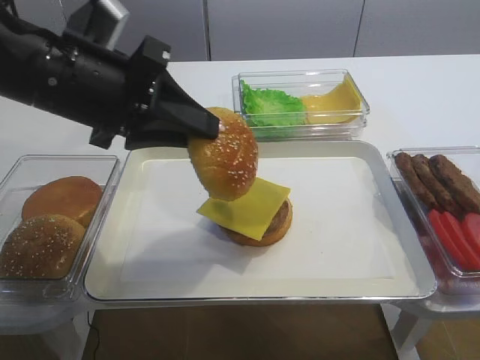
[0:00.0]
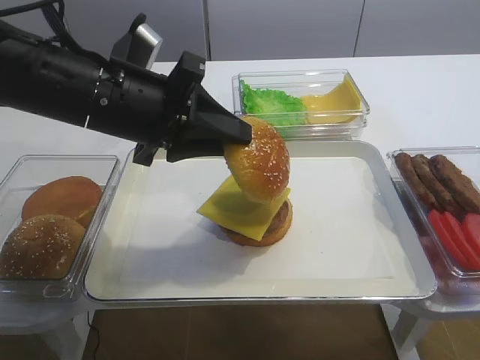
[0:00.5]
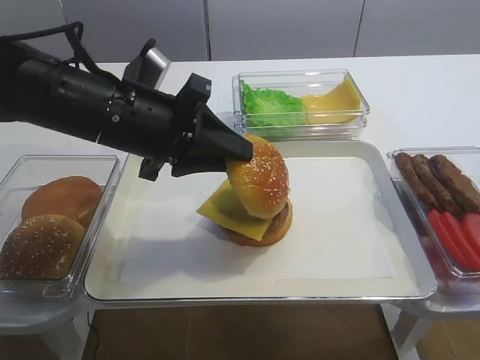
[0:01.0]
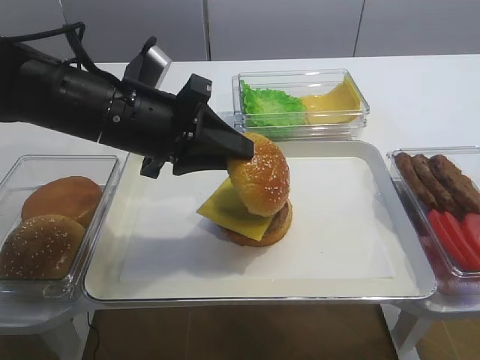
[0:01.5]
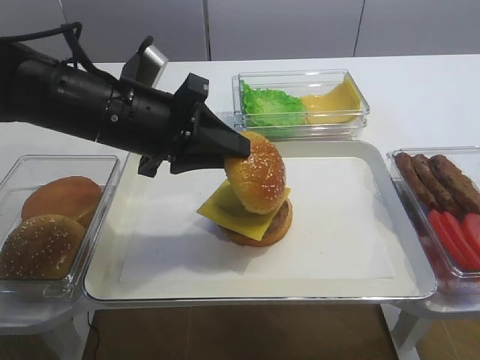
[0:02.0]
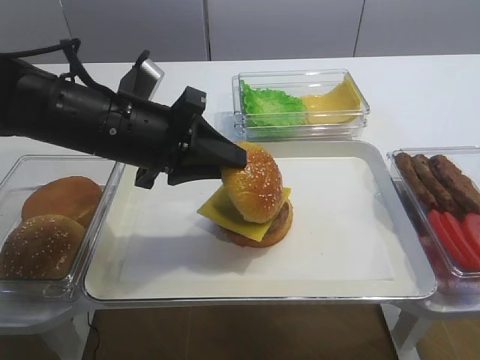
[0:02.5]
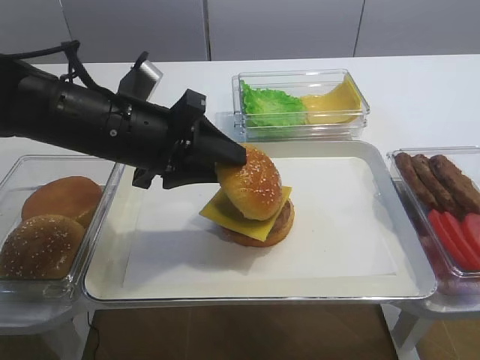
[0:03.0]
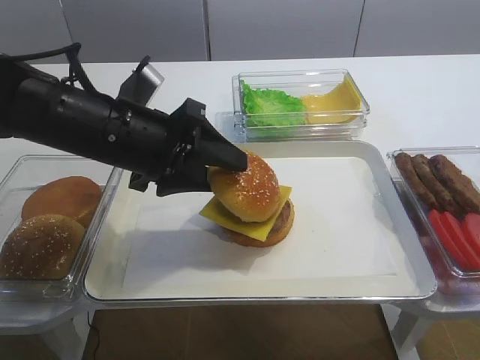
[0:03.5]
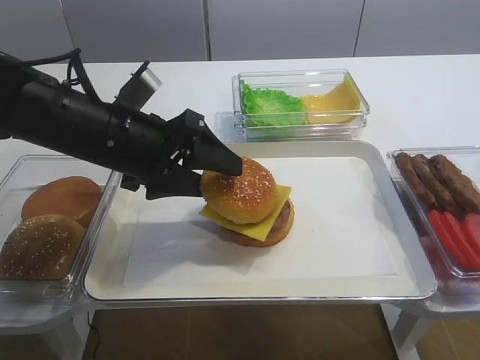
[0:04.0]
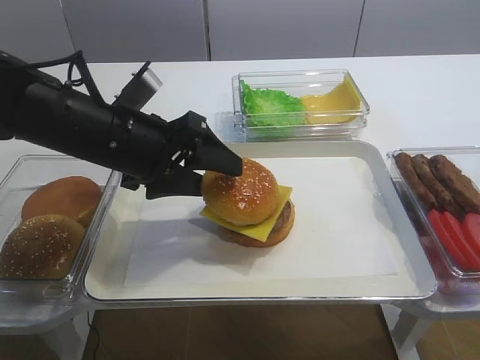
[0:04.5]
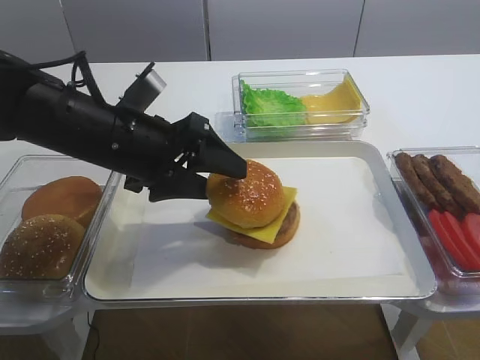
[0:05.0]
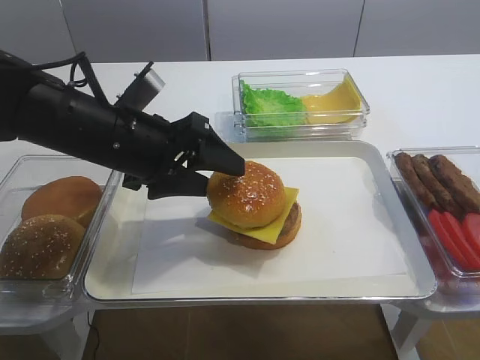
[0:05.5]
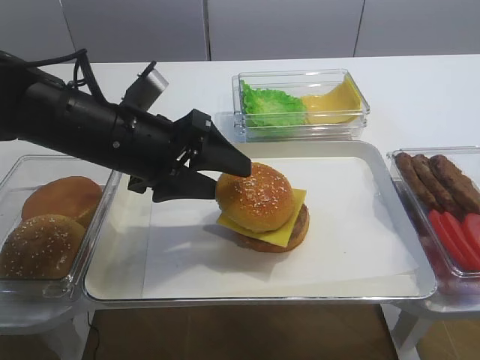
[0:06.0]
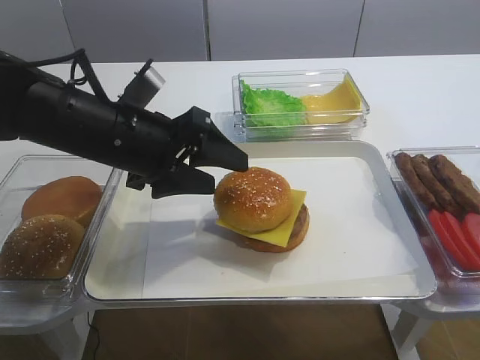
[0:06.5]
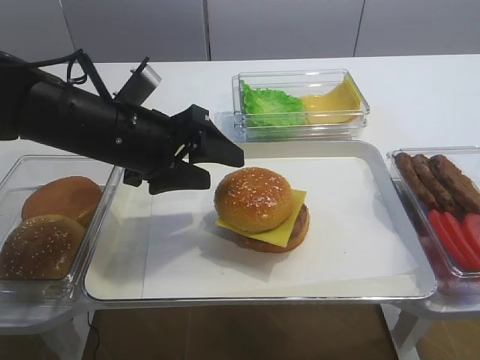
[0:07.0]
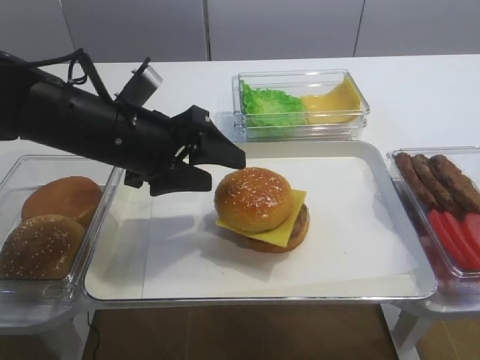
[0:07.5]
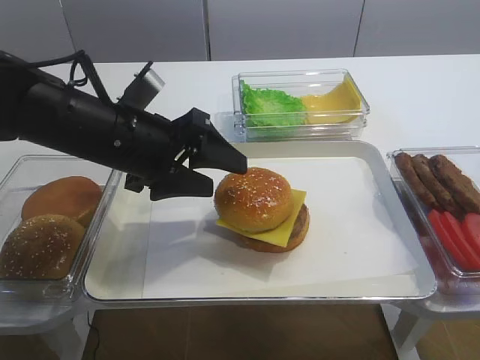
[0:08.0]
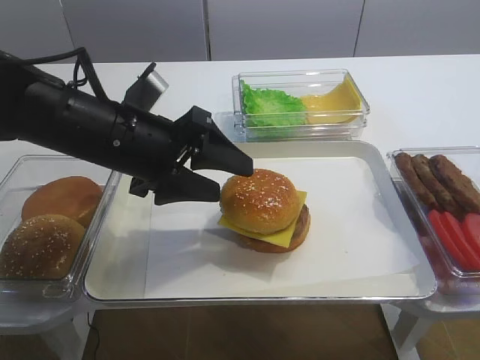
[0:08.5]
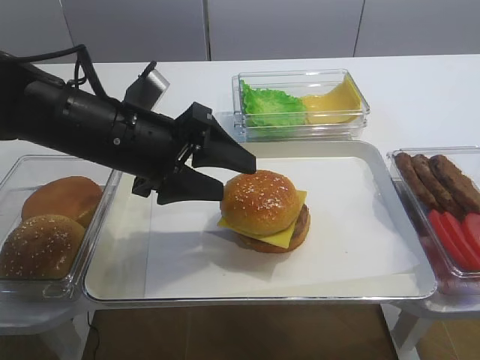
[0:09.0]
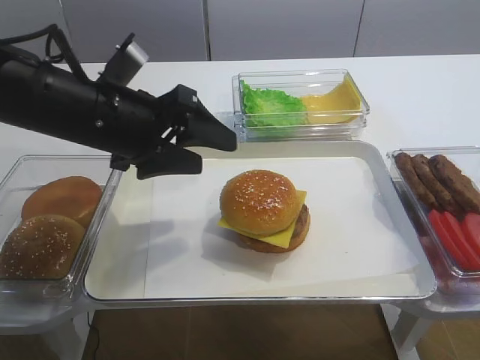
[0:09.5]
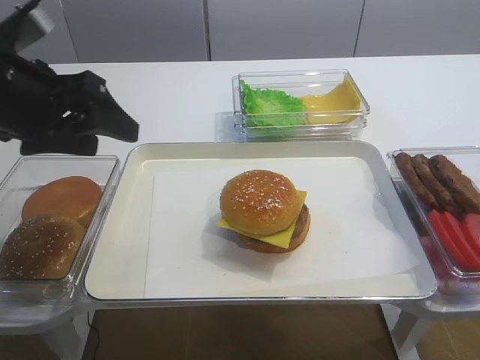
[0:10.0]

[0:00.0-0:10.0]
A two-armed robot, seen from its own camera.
Step, 0:00.0 to 0:06.5: Place the hamburger lid on the cheese slice with the left gripper.
0:00.0 to 0:02.0: The left gripper goes some 5 cm downward.
0:02.0 to 0:04.0: The left gripper opens.
0:04.0 to 0:06.0: Both grippers stay put.
0:06.0 to 0:08.0: The grippers make only small movements.
0:08.0 to 0:10.0: The left gripper moves to the left and upward, some 10 cm.

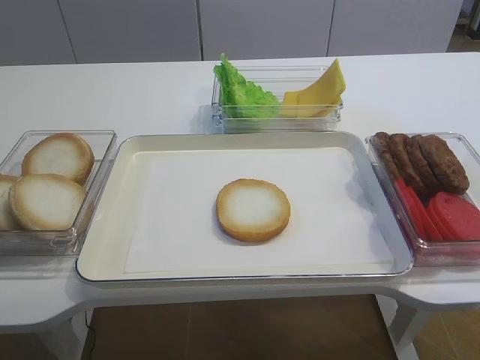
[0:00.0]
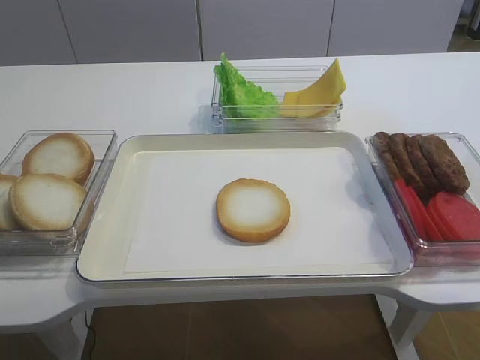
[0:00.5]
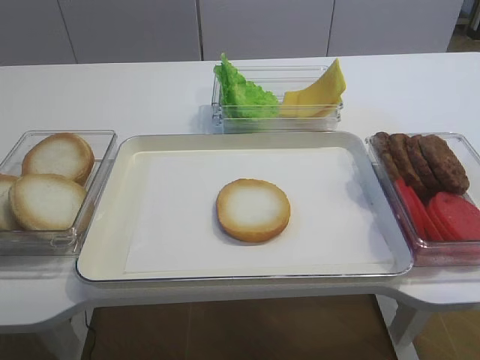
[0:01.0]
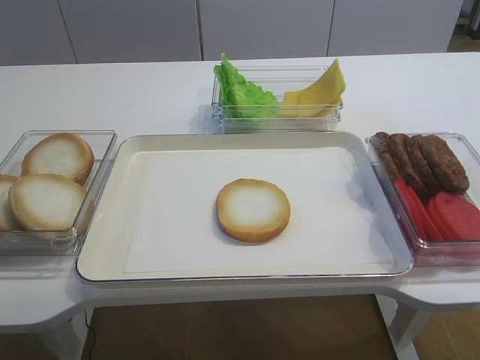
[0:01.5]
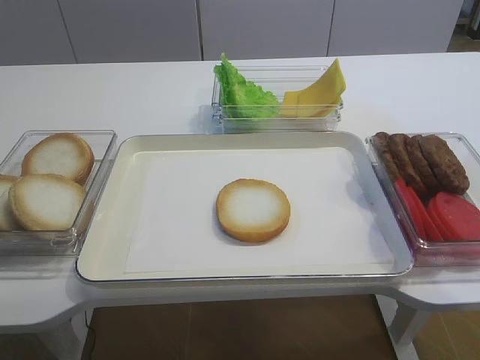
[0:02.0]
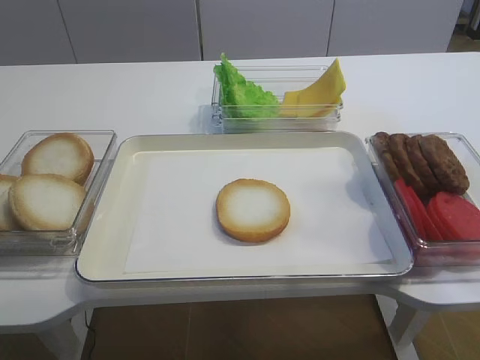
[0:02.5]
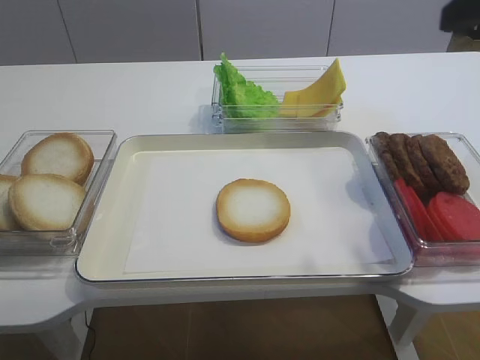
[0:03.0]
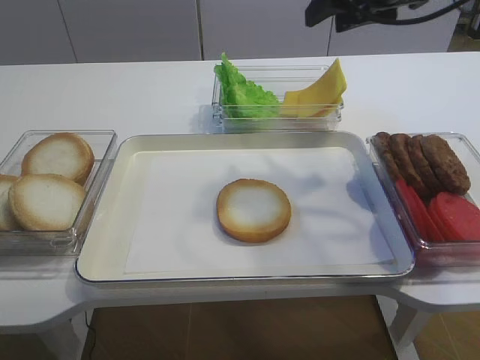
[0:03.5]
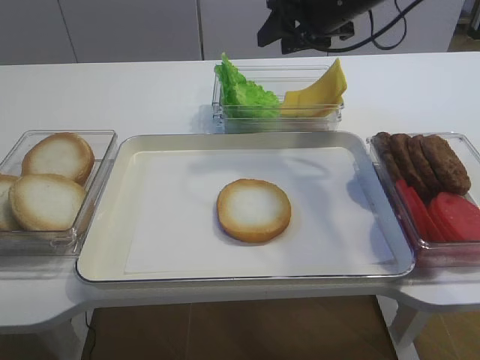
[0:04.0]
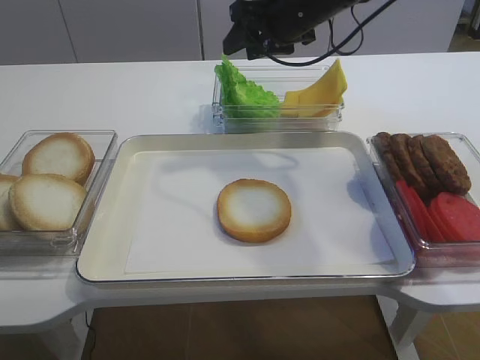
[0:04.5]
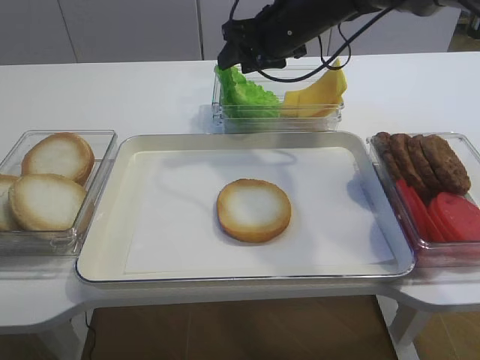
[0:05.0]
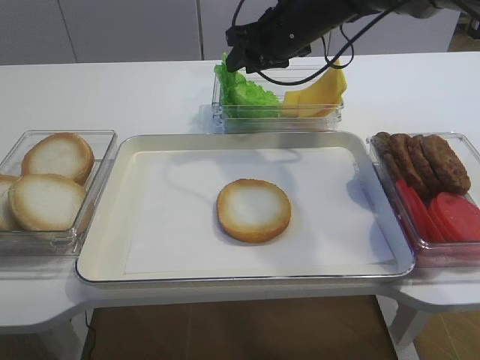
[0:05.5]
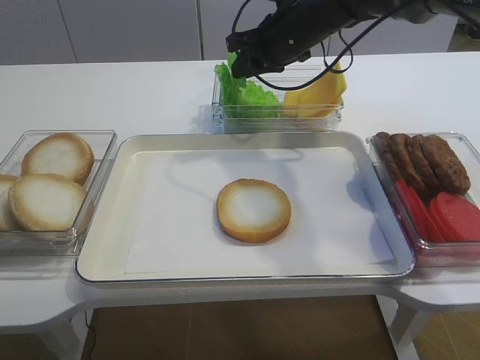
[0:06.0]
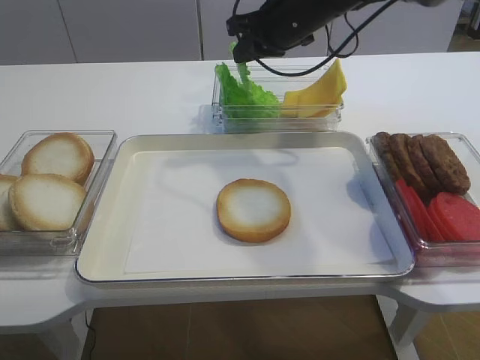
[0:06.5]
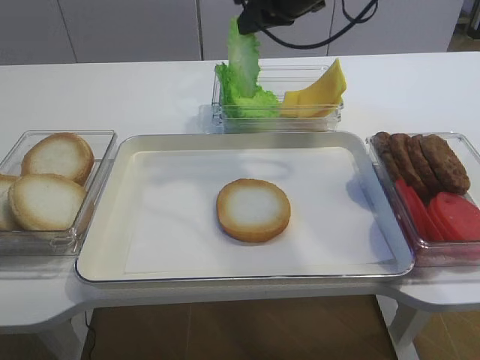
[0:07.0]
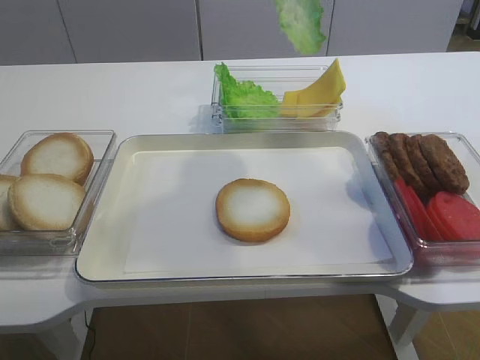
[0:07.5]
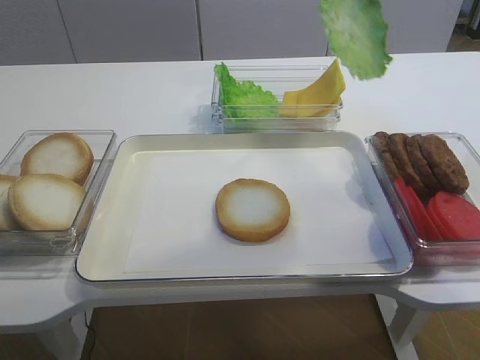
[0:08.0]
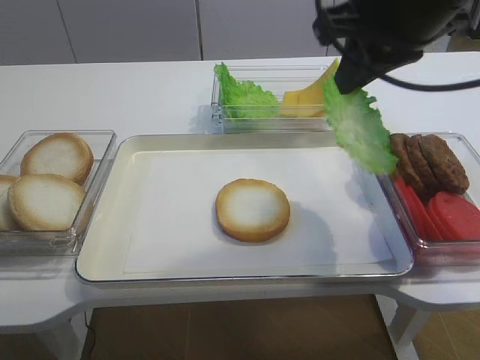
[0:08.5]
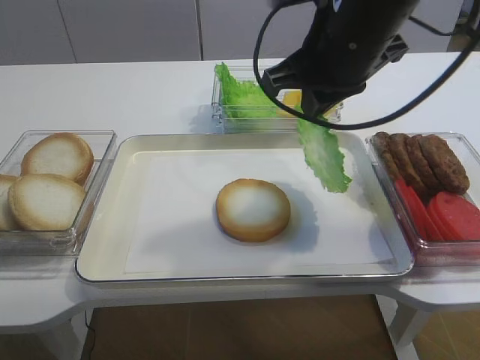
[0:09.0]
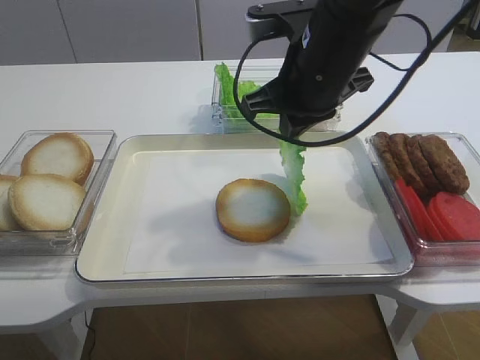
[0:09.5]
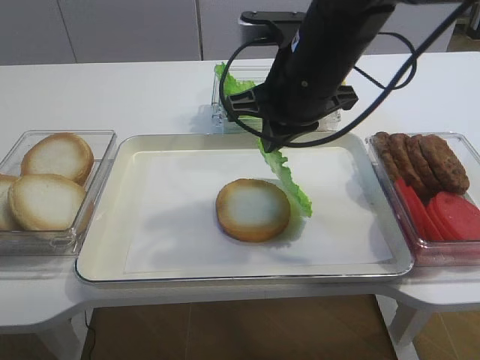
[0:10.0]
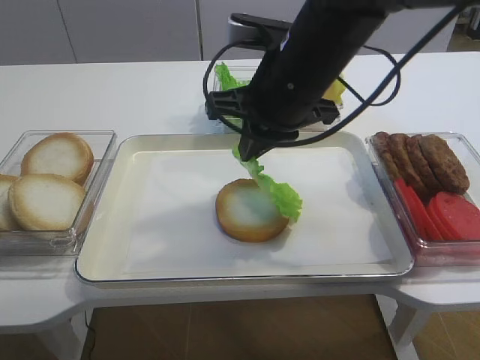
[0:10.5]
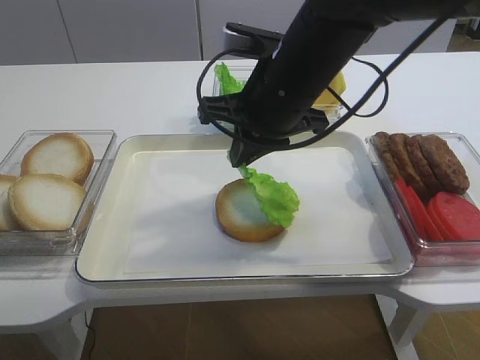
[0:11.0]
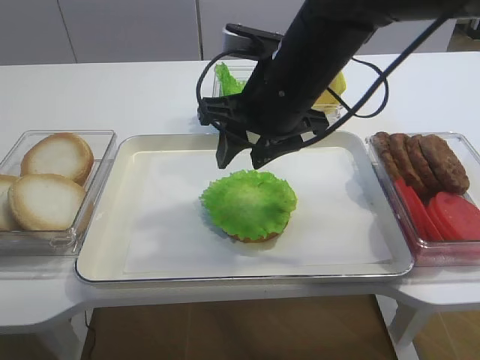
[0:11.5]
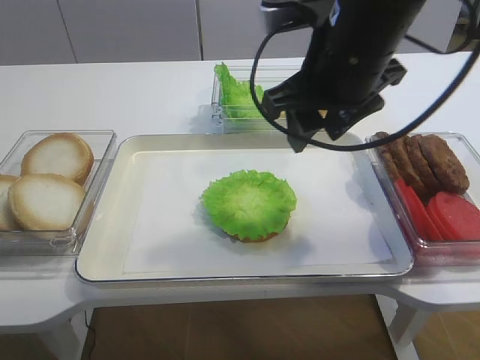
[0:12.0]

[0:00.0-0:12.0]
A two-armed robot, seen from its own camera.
Step, 0:00.0 to 0:06.5: Pick up the lettuce leaf with the right gripper.
Step, 0:07.0 to 0:11.5: Place the lettuce leaf on the bread slice with the right gripper.
0:02.0 to 0:04.0: The right gripper heads forward, covering roughly 50 cm.
0:04.0 to 0:06.0: The right gripper travels to the left by approximately 5 cm, and closes its fingers.
0:06.0 to 0:08.0: The right gripper heads upward and backward, covering some 25 cm.
0:08.0 to 0:10.0: The right gripper travels downward and to the left by roughly 20 cm.
0:10.0 to 0:12.0: The right gripper opens its fingers.

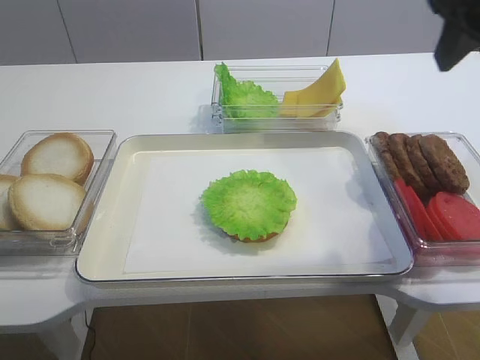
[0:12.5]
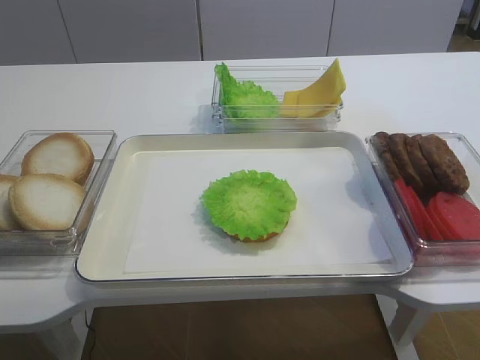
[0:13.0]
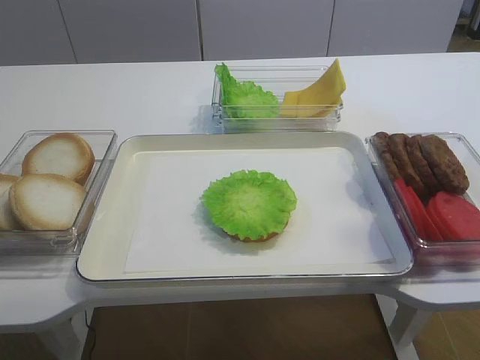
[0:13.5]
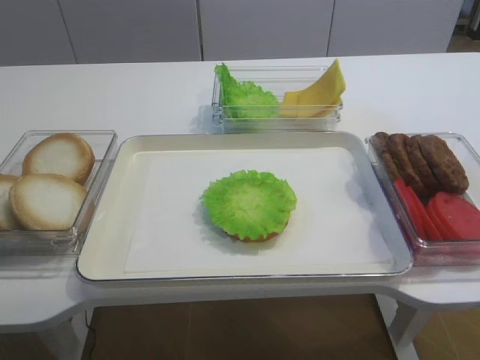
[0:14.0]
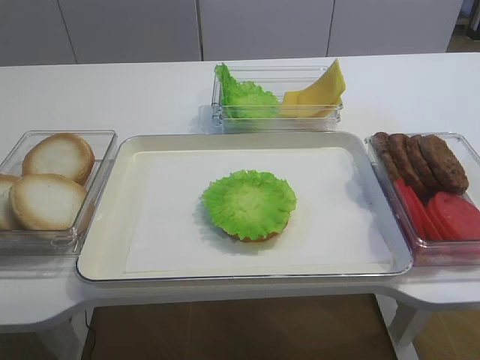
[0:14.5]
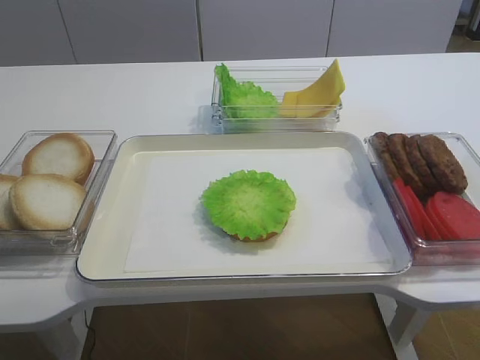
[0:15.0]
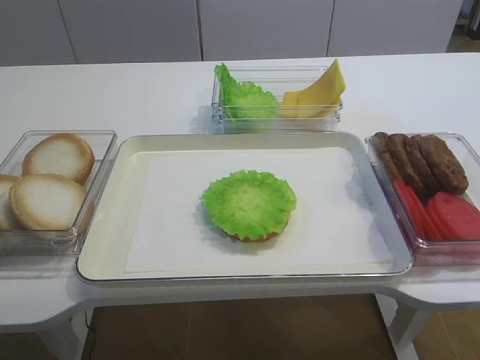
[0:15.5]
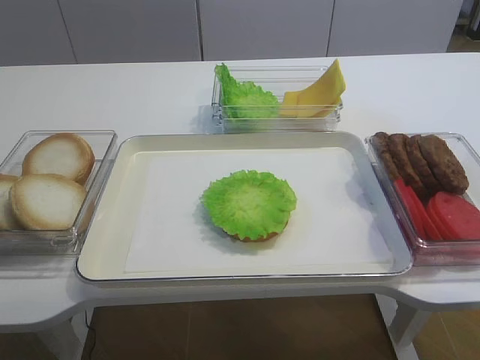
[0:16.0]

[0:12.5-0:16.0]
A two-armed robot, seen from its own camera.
0:12.5 to 0:14.5: The right gripper travels backward by some 30 cm.
